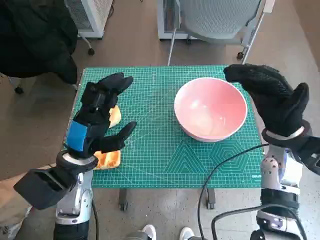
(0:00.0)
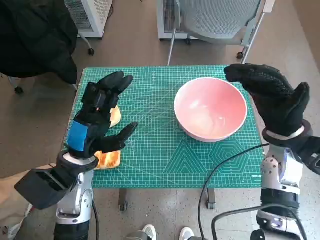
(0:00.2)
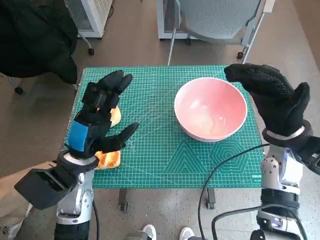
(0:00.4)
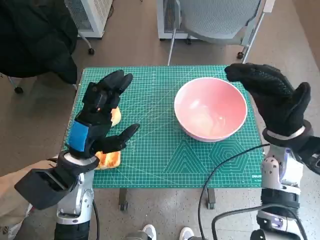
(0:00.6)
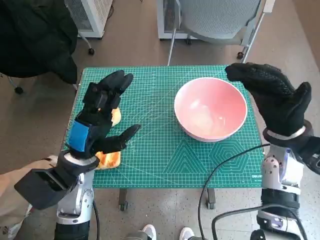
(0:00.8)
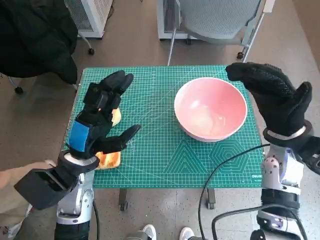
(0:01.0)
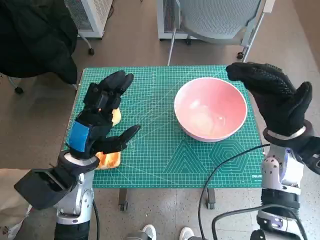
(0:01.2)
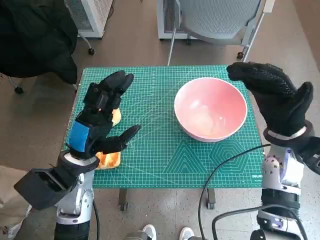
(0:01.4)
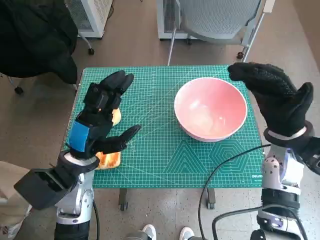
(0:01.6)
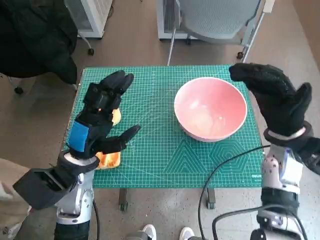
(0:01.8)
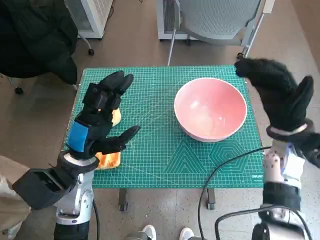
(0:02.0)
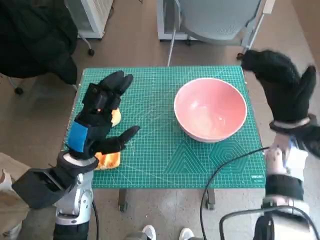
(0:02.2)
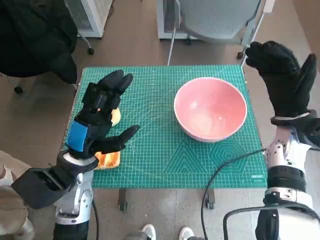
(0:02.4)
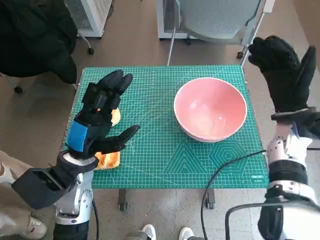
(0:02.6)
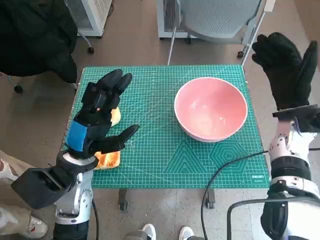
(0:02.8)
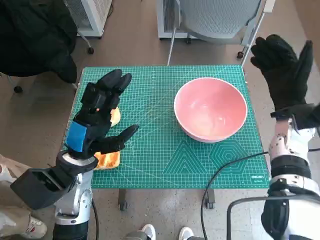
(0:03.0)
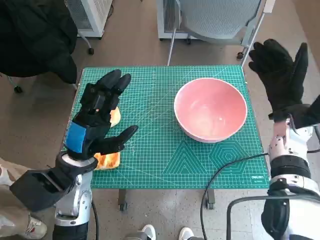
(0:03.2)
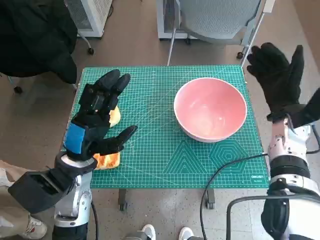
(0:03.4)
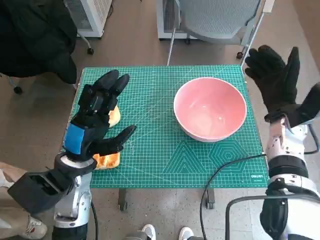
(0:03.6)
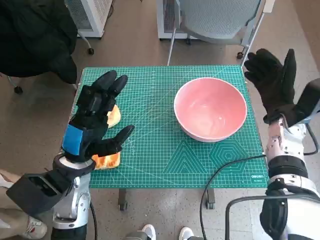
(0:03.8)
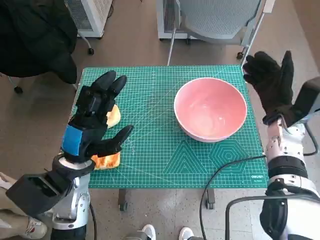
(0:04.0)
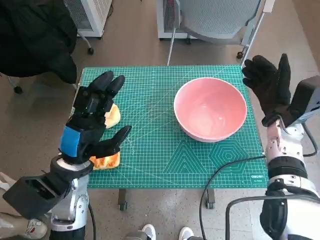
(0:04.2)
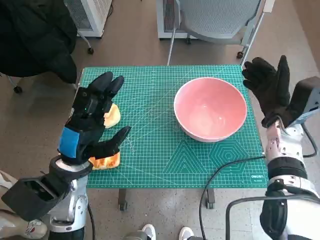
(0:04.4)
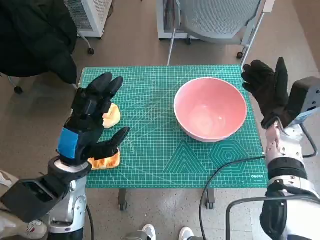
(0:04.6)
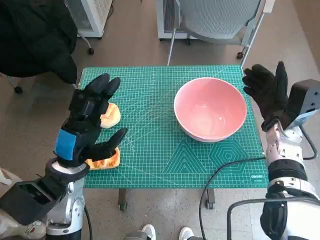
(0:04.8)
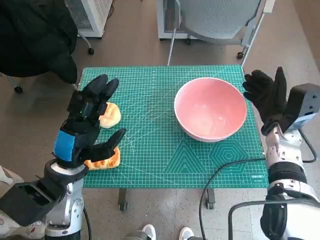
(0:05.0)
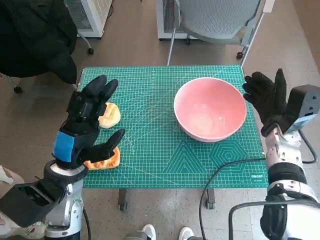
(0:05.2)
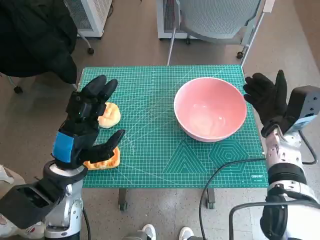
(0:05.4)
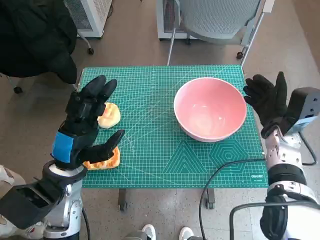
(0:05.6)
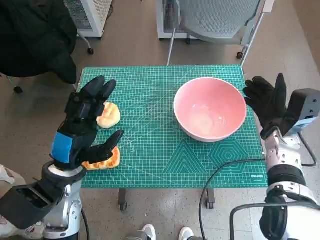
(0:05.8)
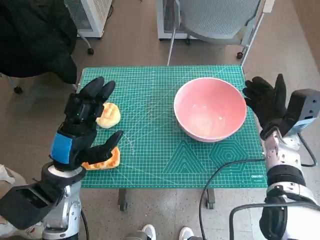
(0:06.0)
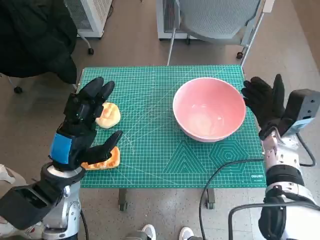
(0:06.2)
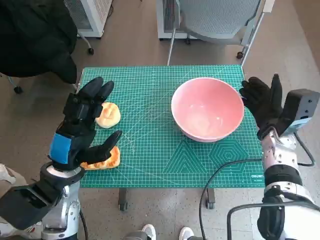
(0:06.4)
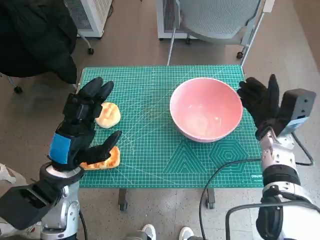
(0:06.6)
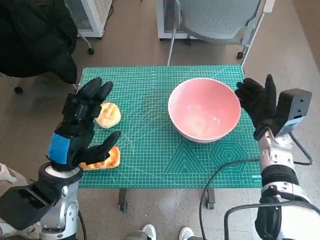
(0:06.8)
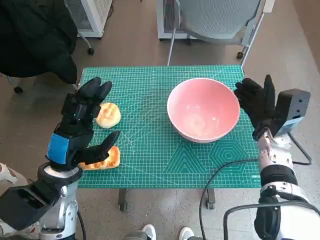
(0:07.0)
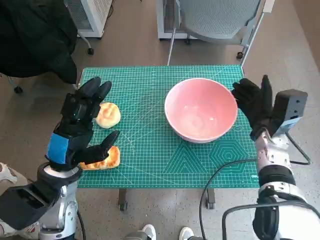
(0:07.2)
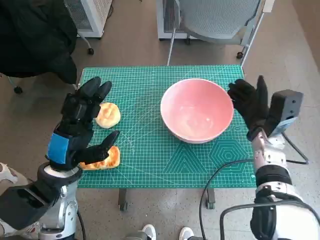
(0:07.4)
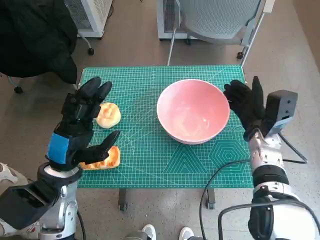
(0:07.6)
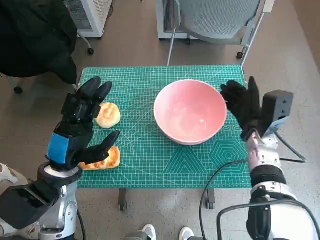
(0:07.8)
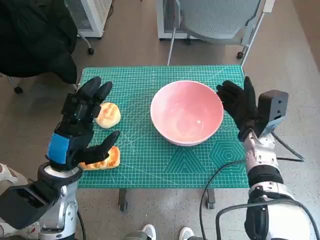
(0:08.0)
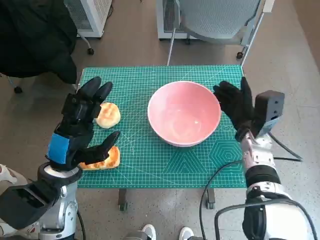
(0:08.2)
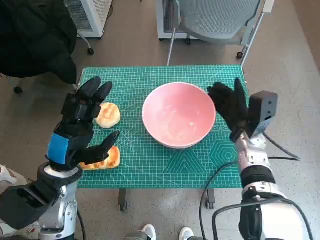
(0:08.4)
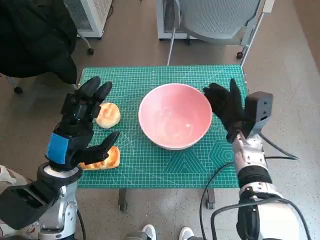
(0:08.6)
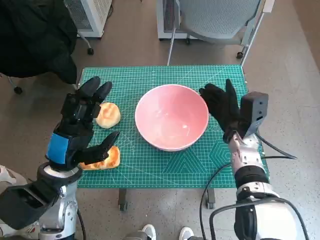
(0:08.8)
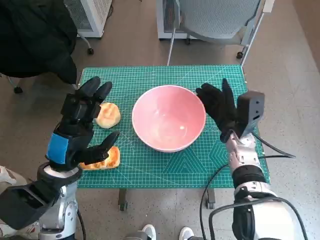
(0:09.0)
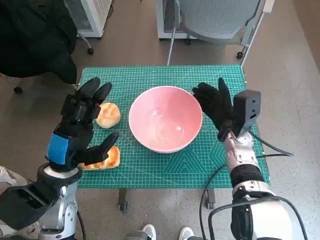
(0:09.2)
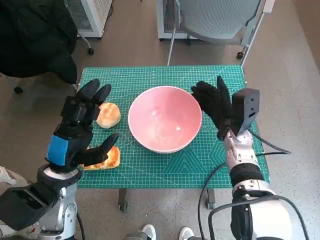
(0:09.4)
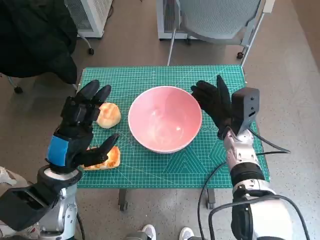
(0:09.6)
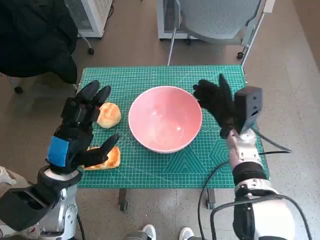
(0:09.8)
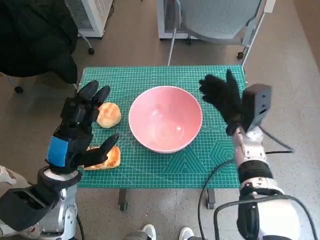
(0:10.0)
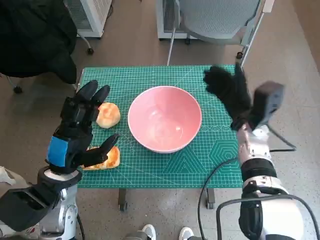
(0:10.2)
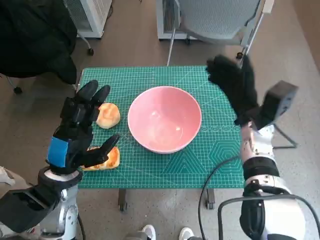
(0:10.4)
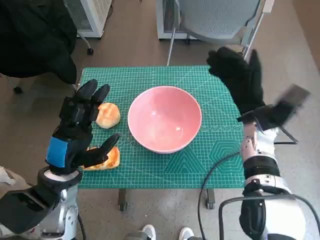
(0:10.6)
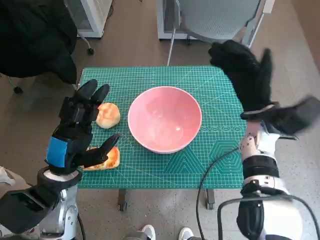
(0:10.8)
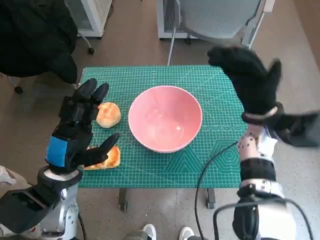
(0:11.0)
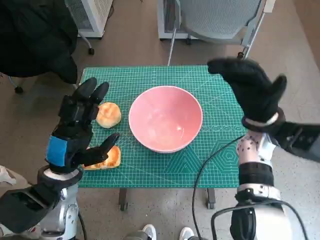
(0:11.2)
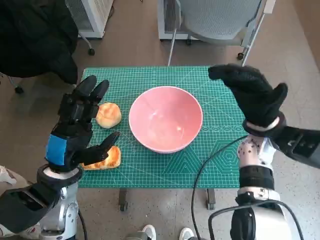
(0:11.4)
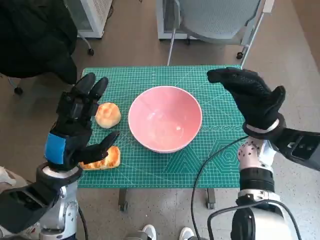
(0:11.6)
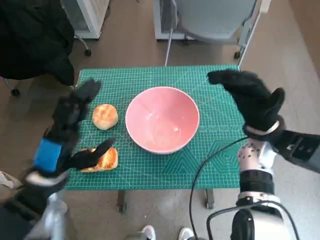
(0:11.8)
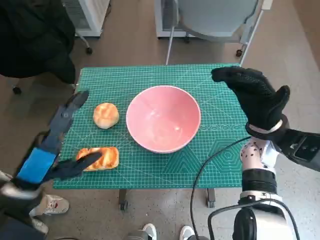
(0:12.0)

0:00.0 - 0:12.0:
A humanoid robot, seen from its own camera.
Step, 0:00.0 - 0:09.8: Move the pink bowl to the center of table with right hand.
0:01.6 - 0:03.0: The right hand changes place by approximately 5 cm.
0:04.4 - 0:07.6: There are only small adjustments of the hands.
0:09.0 - 0:10.4: The hands make only small movements.
0:10.4 - 0:12.0: The left hand changes place by some 5 cm.

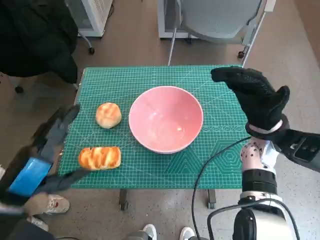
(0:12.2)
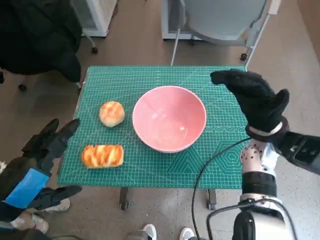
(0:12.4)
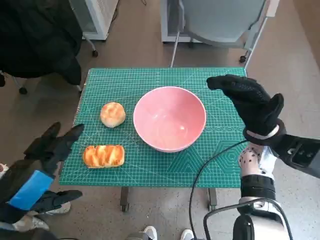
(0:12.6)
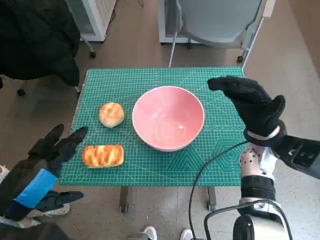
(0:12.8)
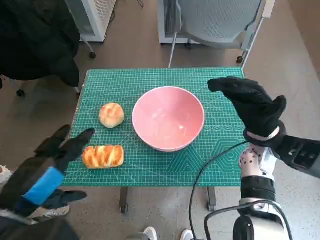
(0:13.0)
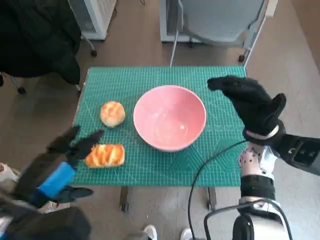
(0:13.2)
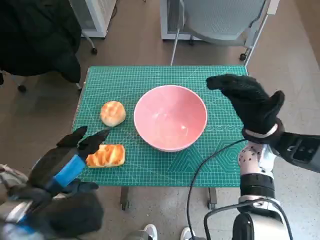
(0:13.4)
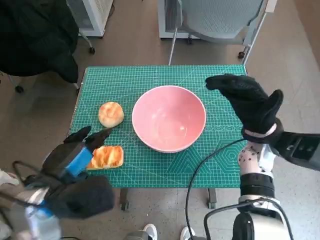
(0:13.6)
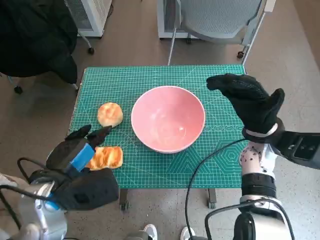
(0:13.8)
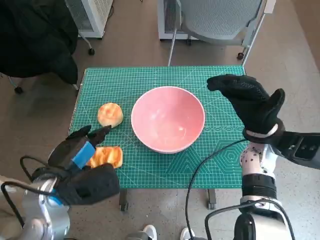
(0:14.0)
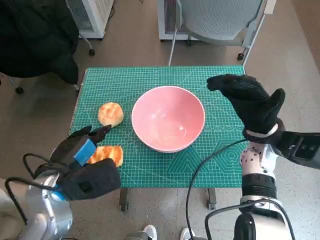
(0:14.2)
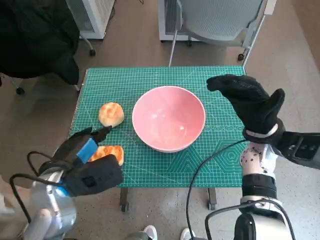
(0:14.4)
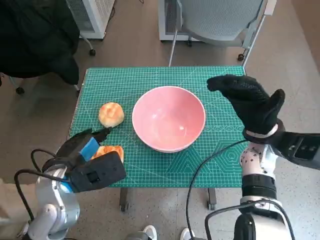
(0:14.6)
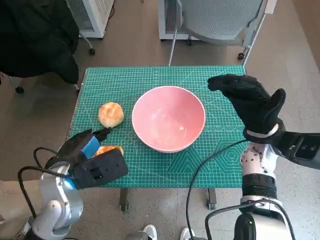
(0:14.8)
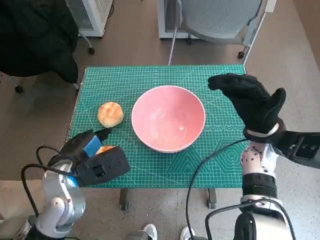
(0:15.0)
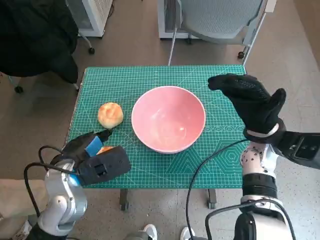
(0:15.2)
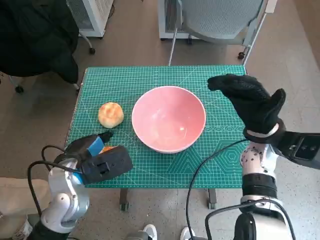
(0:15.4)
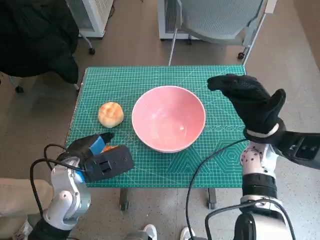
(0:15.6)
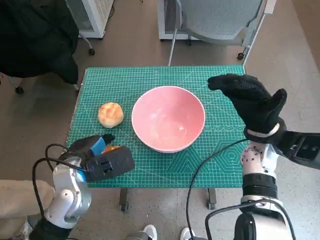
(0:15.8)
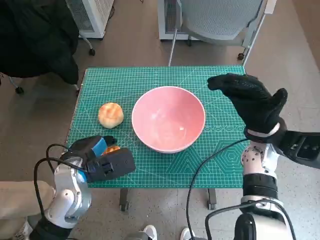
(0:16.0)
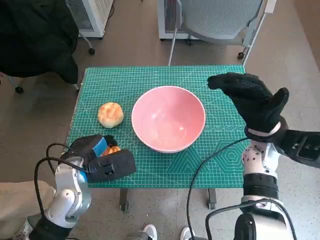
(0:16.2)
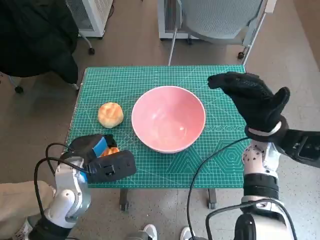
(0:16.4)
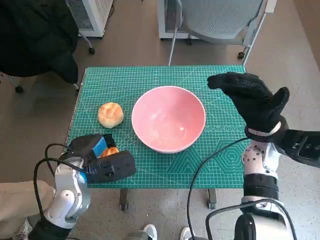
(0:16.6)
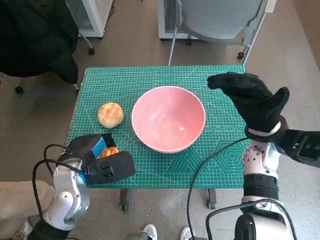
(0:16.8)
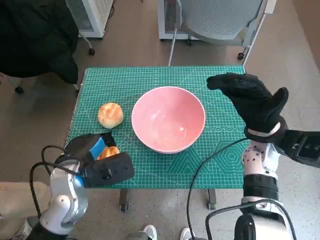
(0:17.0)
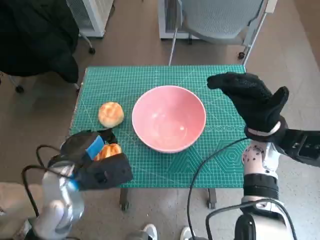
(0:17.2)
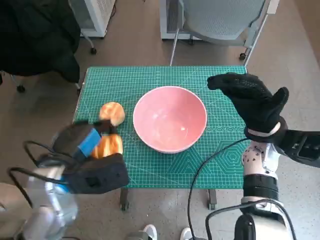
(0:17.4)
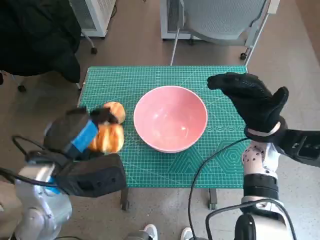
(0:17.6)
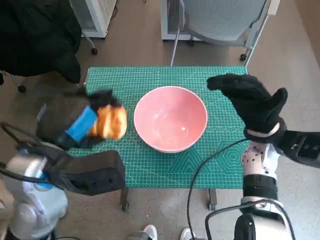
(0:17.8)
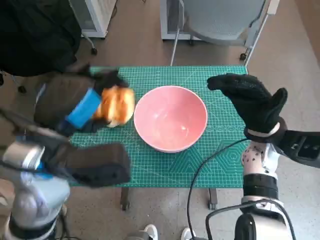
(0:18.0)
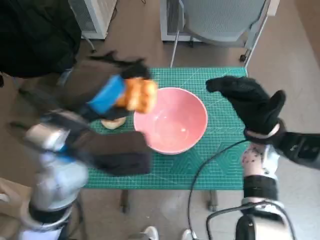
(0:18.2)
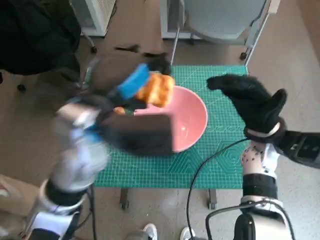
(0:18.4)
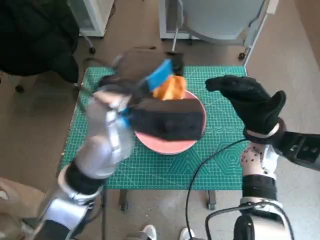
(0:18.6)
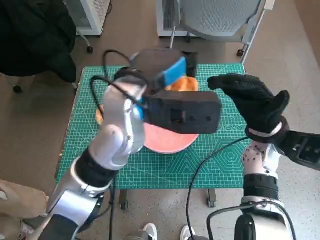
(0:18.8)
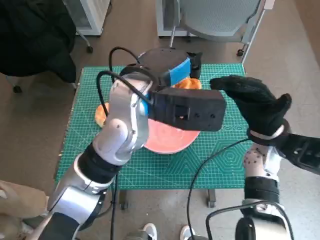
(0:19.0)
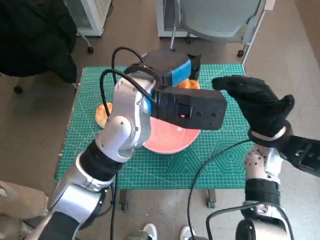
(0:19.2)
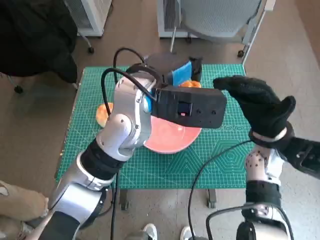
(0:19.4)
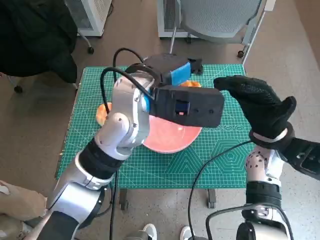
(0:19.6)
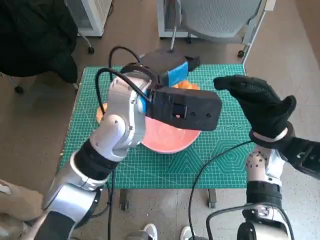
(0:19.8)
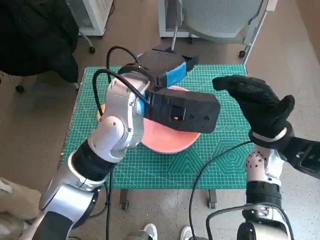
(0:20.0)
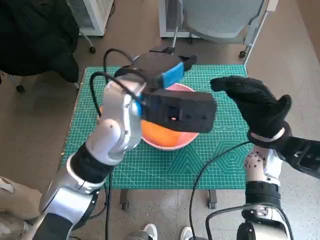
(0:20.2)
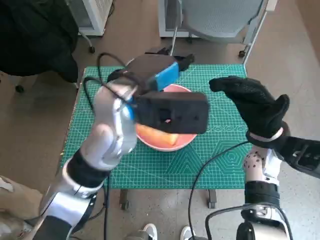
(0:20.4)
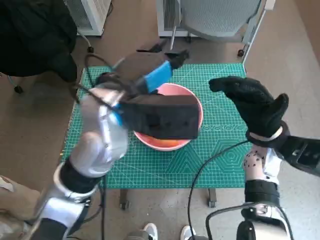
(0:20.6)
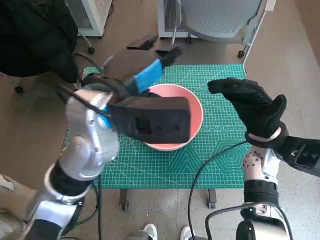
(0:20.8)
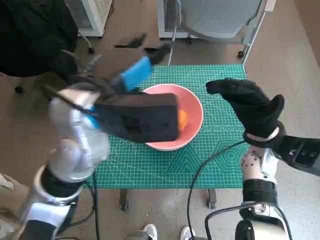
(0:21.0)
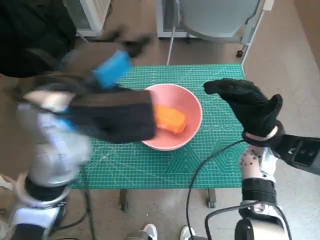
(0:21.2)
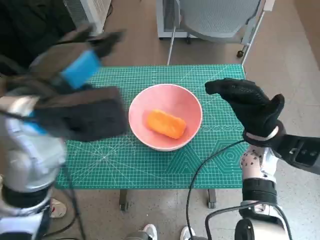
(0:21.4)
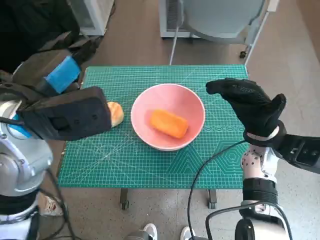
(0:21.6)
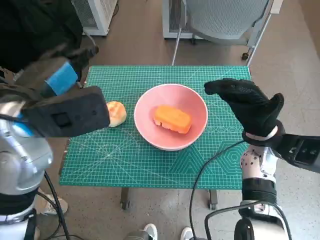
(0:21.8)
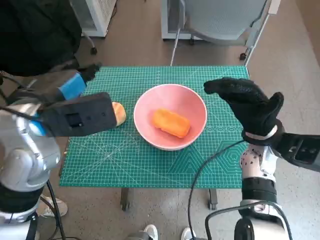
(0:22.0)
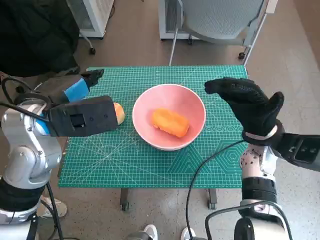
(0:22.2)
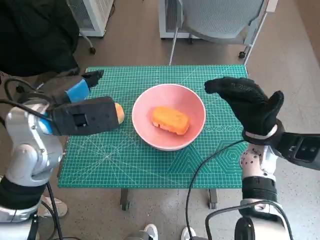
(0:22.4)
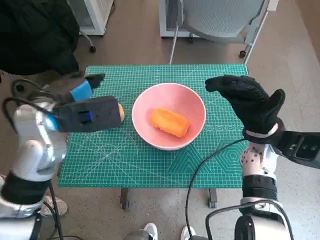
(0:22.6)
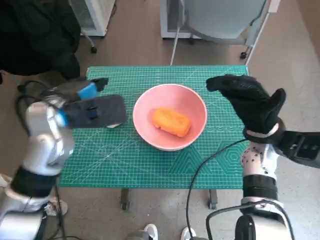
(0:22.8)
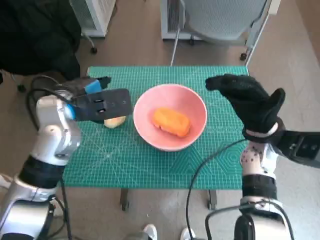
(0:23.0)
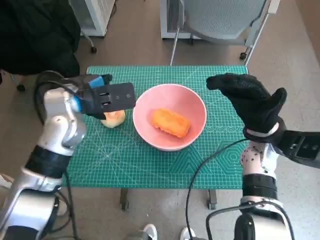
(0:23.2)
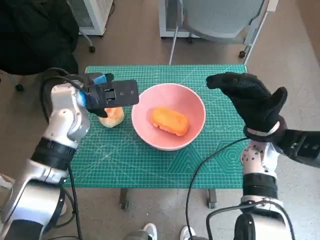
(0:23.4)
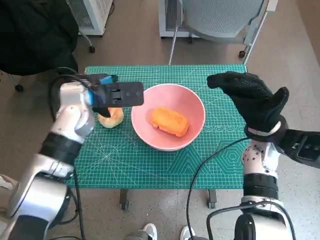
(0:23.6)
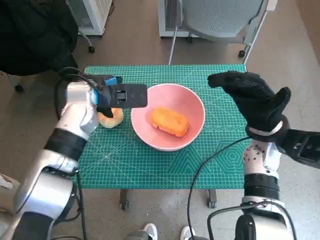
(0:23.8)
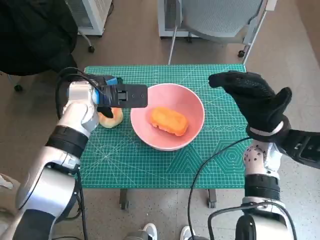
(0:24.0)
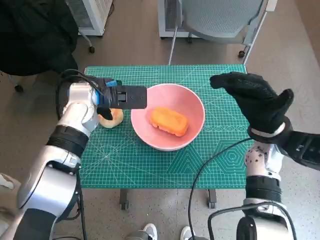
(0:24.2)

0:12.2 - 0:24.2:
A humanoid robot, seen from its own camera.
Step, 0:12.2 - 0:16.4: Grasp the long bread with left hand.
Step, 0:16.6 - 0:20.2: Place the long bread in pink bowl with left hand.
0:12.2 - 0:13.8: The left hand moves about 5 cm.
0:13.8 - 0:15.2: The left hand ends up approximately 5 cm from where it was.
0:15.2 - 0:16.6: The hands move only a little.
0:16.6 - 0:18.2: The left hand travels upward by about 15 cm.
0:18.2 - 0:19.8: The left hand is displaced to the right and forward by approximately 10 cm.
0:19.8 - 0:21.2: The left hand moves to the left and backward, about 10 cm.
0:21.2 - 0:22.6: The left hand is displaced to the left and downward by some 10 cm.
0:22.6 - 0:24.2: The left hand travels forward and downward by some 10 cm.
